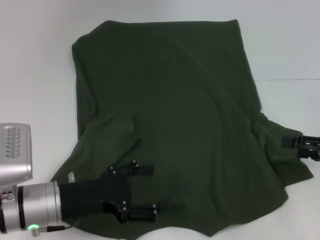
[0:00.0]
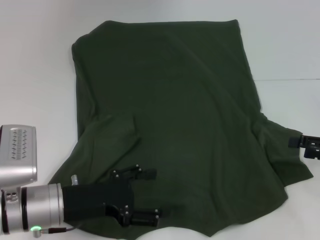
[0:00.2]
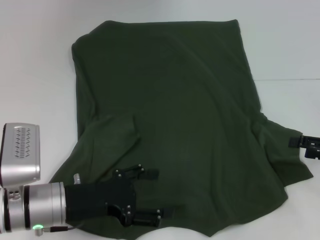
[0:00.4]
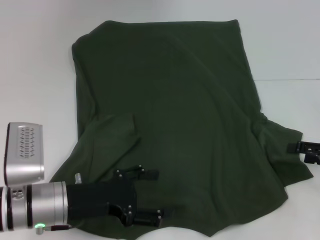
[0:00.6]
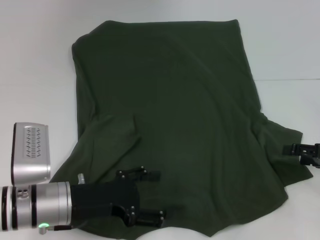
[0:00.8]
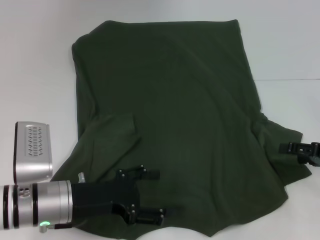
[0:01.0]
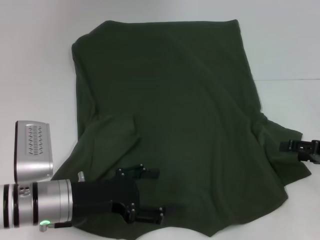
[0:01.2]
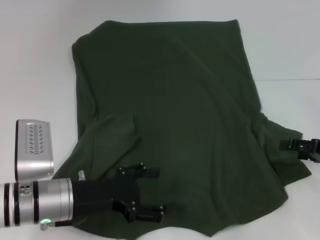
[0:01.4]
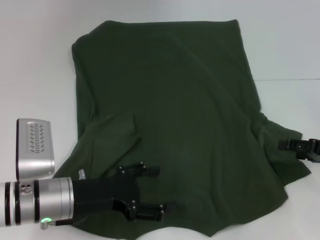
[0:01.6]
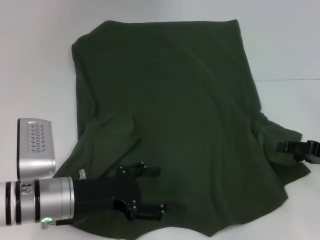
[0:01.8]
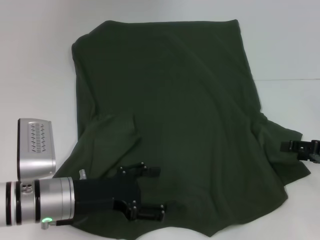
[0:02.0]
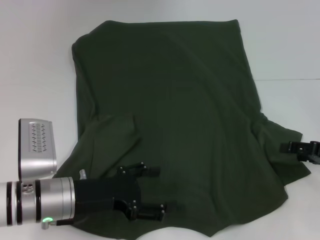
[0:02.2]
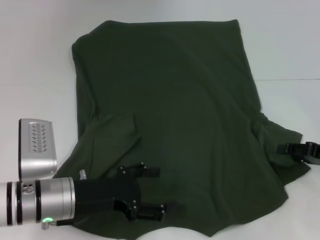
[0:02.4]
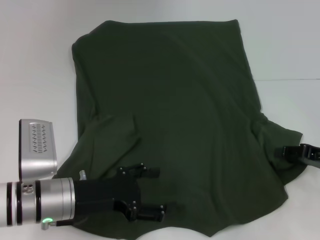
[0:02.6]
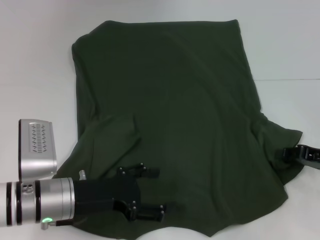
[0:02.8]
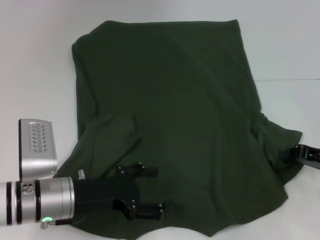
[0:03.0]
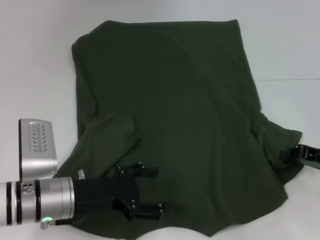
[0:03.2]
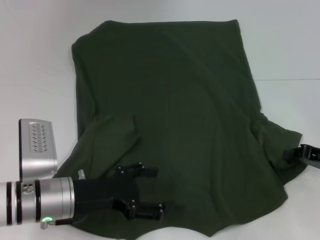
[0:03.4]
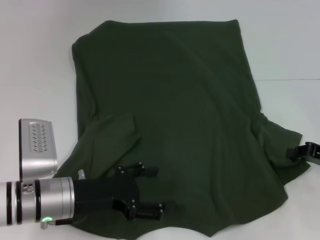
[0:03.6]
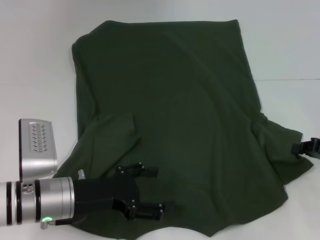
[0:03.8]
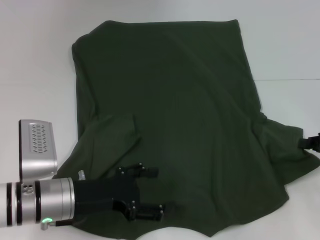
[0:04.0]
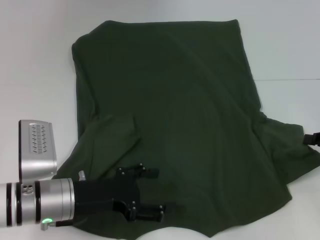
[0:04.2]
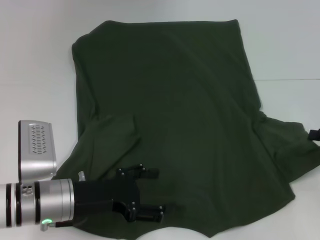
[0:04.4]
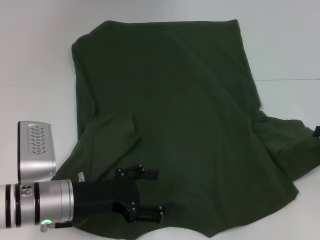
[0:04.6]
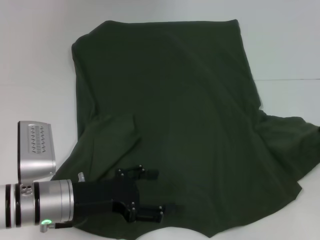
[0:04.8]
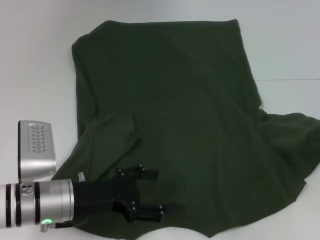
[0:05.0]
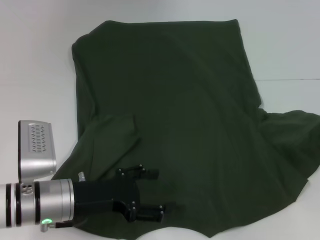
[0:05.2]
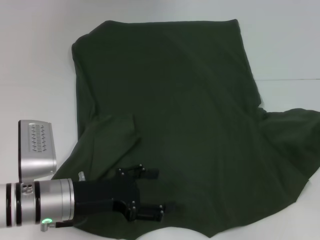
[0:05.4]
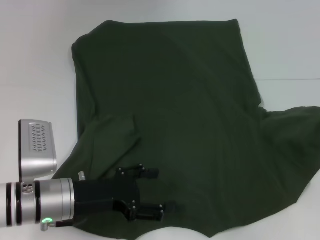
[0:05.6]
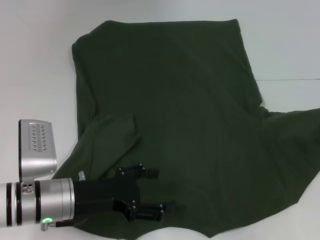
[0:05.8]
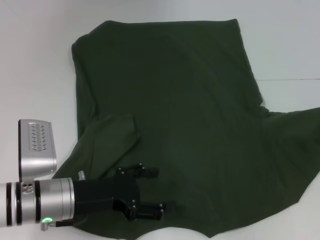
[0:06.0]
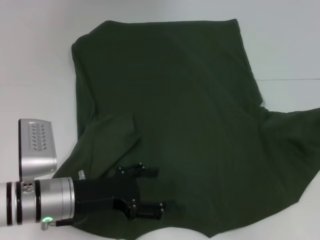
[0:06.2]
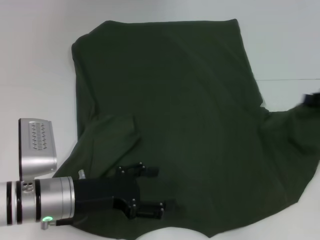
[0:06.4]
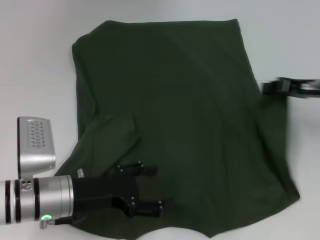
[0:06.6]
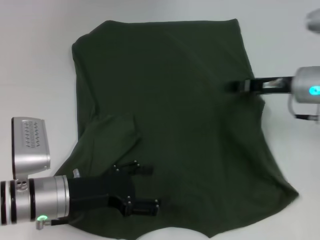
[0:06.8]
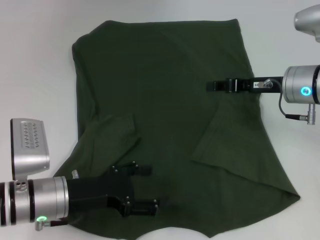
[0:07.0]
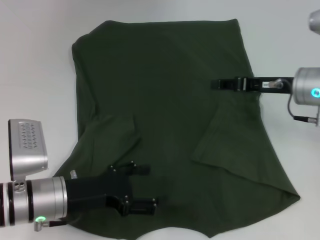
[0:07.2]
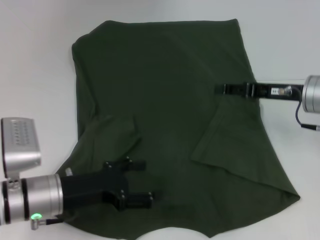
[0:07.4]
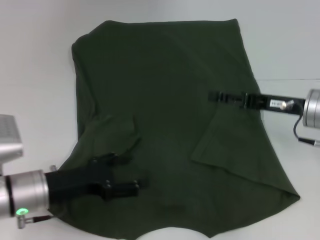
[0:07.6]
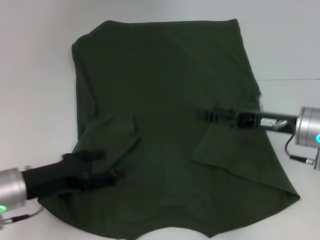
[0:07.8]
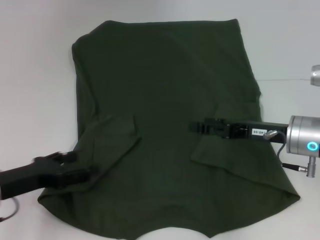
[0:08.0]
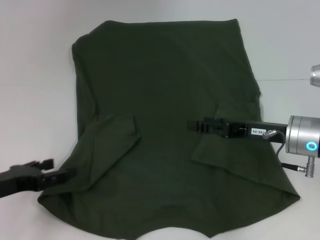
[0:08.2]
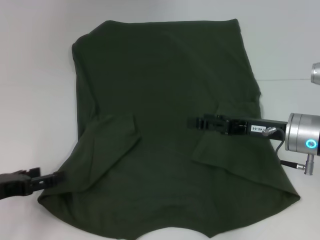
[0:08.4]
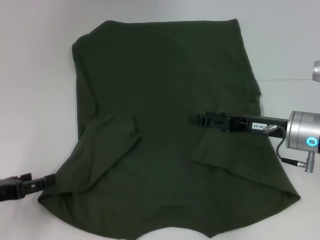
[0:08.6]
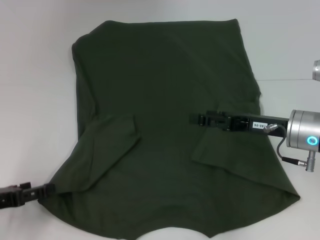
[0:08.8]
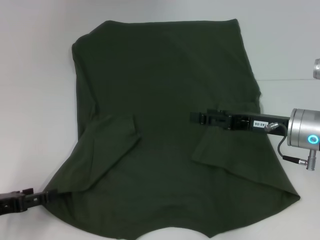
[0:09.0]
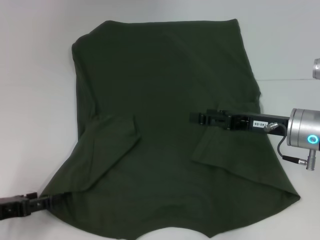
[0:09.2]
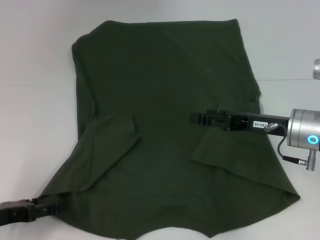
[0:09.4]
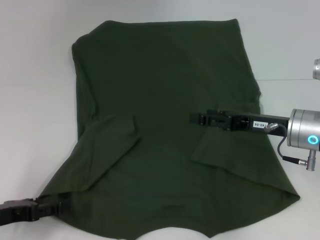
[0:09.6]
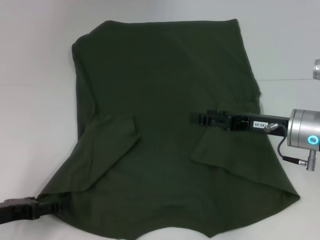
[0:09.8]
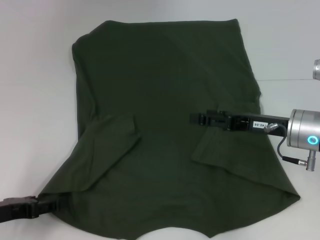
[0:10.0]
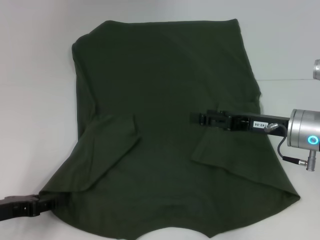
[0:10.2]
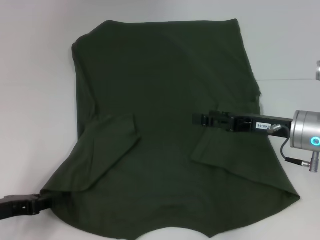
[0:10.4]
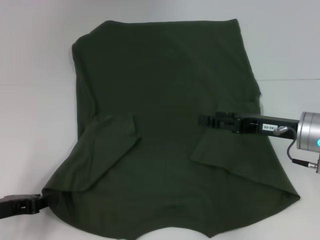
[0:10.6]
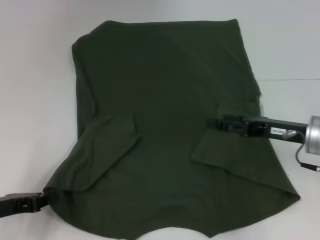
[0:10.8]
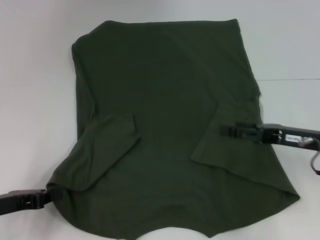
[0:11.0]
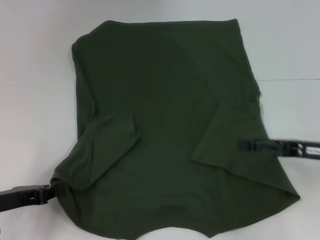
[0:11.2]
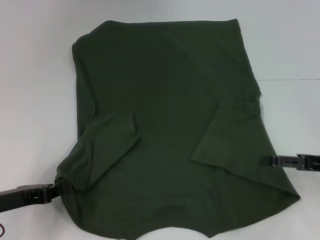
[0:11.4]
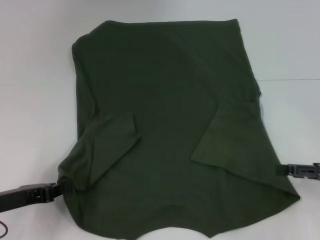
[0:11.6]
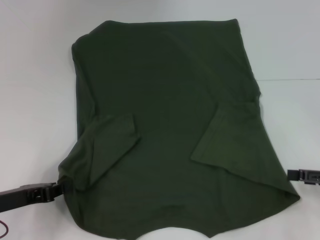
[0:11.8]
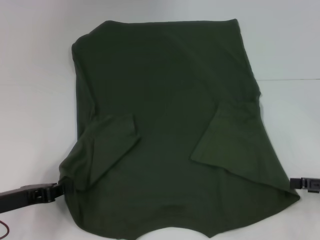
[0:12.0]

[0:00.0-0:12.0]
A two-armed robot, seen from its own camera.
Step, 0:00.0 to 0:09.2: Fold the bottom right sleeve with your right hand.
0:00.0 to 0:01.6: There are only small adjustments of the grippers.
0:01.6 to 0:03.0: The right gripper closes.
0:03.0 to 0:04.4: The grippers move only a little.
0:04.4 to 0:06.0: The grippers stay close to where they were, moving slightly.
0:06.0 to 0:07.6: The right gripper goes approximately 15 cm to the left, and opens.
0:07.6 to 0:09.0: The left gripper travels to the left by approximately 10 cm.
0:09.0 to 0:10.4: The left gripper closes.
0:10.4 to 0:12.0: The left gripper closes its fingers. Meanwhile the right gripper goes about 15 cm to the right and backward.

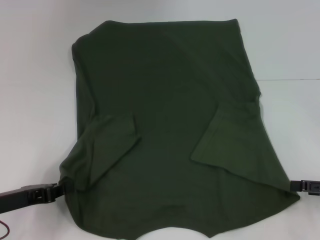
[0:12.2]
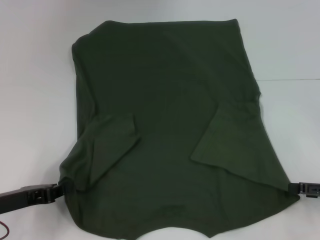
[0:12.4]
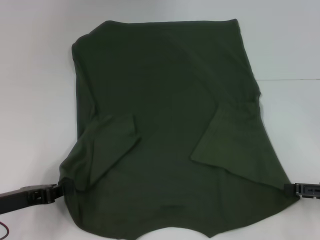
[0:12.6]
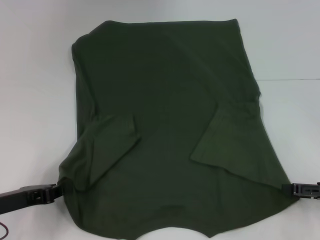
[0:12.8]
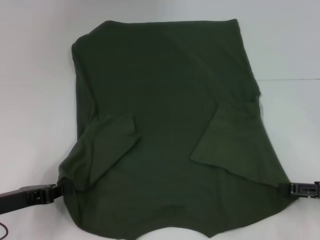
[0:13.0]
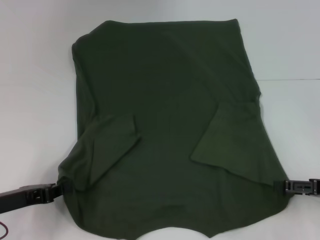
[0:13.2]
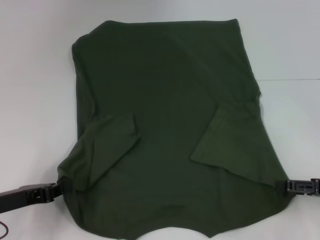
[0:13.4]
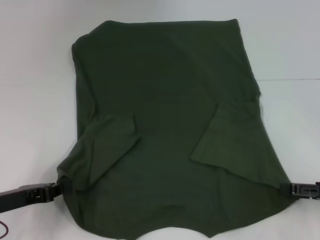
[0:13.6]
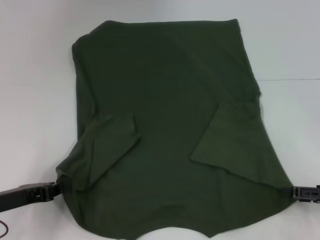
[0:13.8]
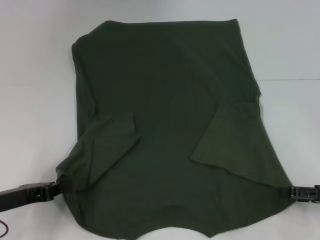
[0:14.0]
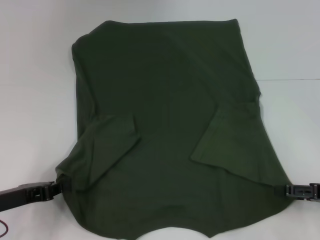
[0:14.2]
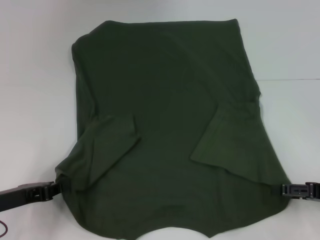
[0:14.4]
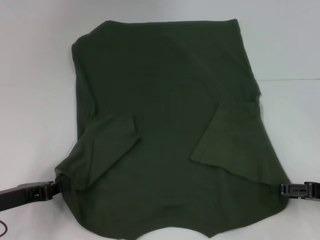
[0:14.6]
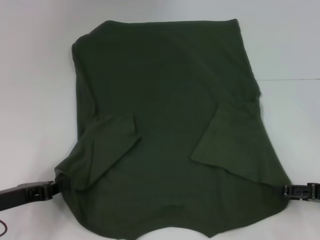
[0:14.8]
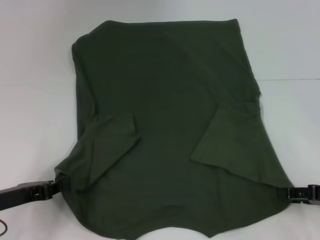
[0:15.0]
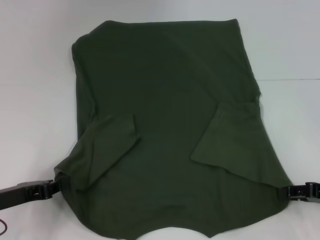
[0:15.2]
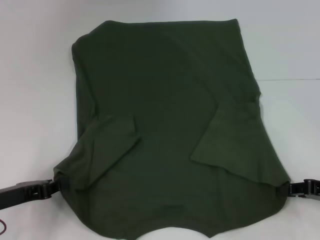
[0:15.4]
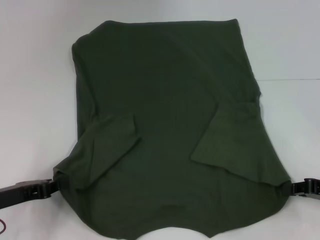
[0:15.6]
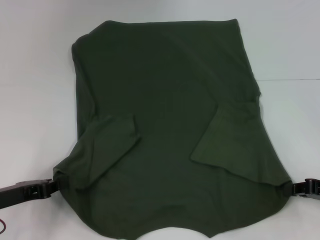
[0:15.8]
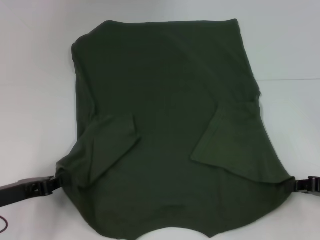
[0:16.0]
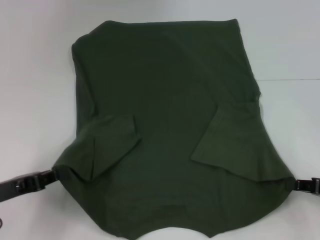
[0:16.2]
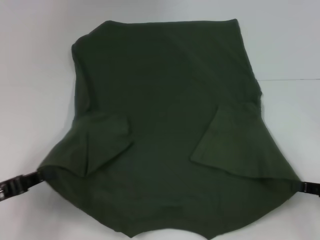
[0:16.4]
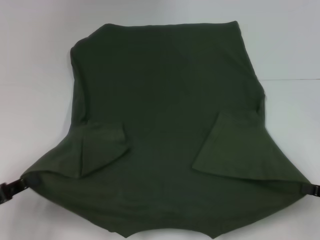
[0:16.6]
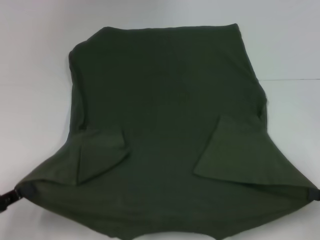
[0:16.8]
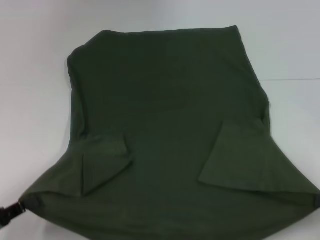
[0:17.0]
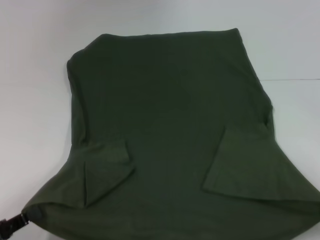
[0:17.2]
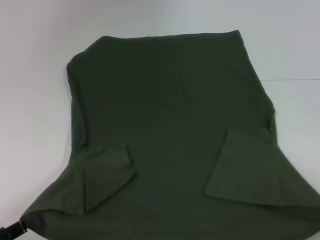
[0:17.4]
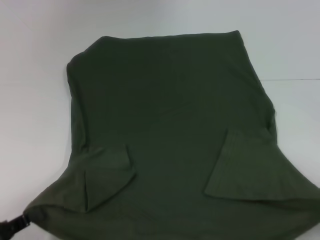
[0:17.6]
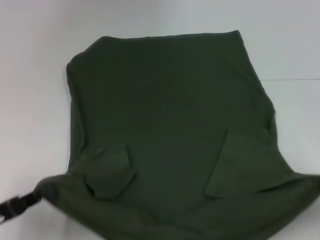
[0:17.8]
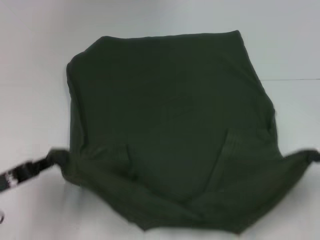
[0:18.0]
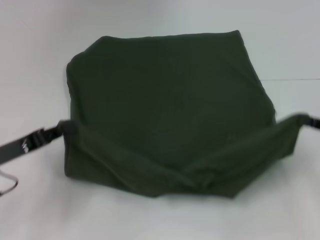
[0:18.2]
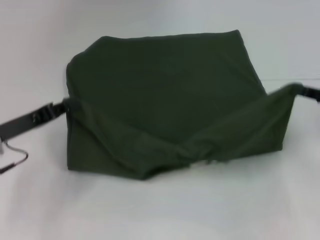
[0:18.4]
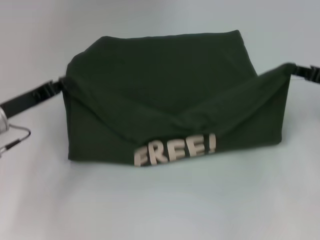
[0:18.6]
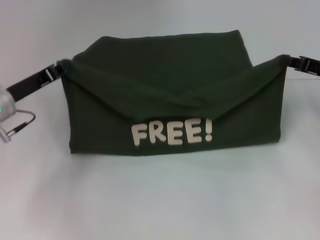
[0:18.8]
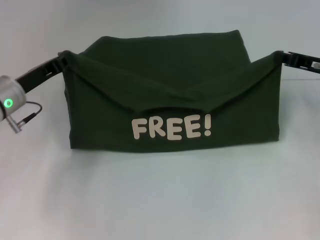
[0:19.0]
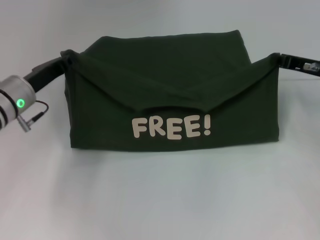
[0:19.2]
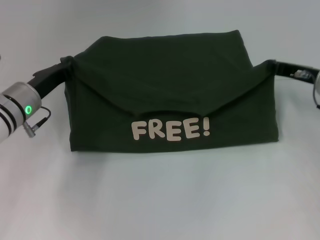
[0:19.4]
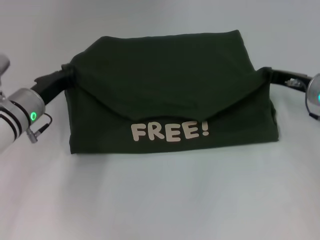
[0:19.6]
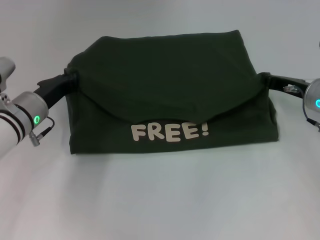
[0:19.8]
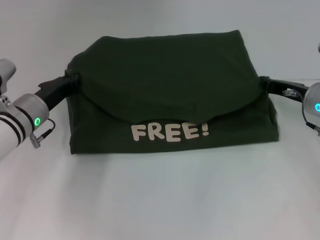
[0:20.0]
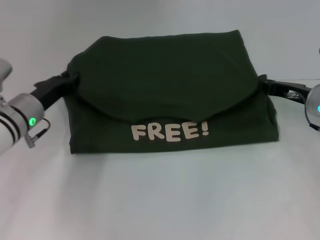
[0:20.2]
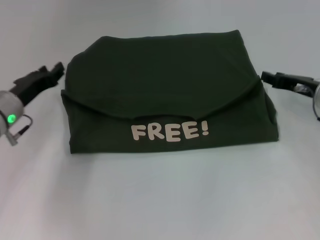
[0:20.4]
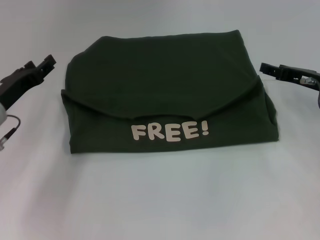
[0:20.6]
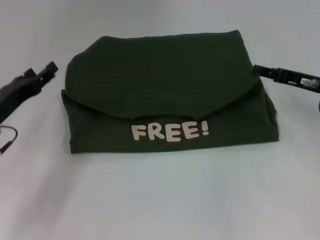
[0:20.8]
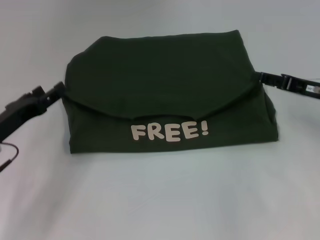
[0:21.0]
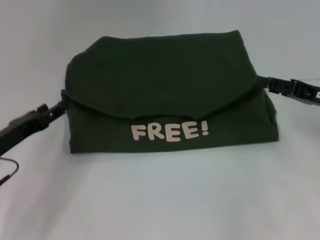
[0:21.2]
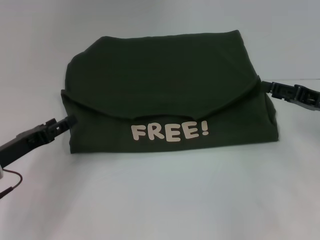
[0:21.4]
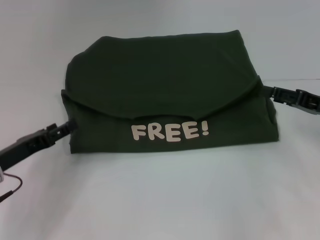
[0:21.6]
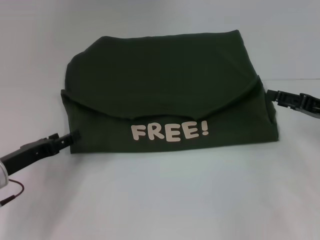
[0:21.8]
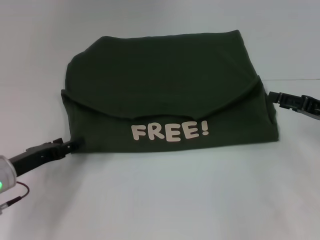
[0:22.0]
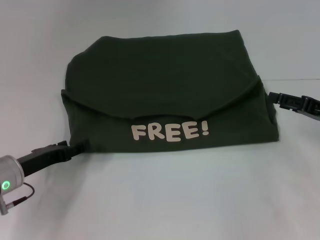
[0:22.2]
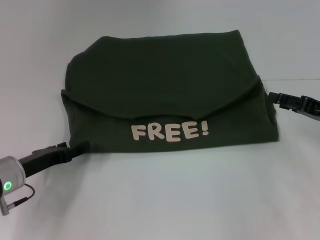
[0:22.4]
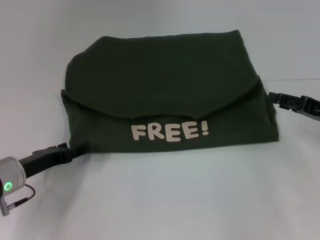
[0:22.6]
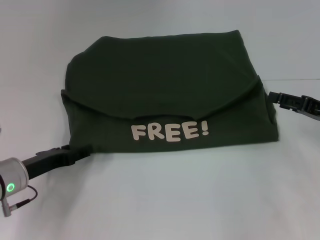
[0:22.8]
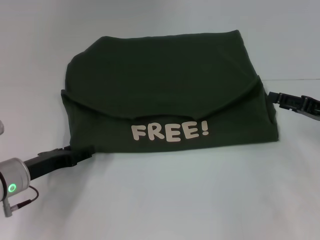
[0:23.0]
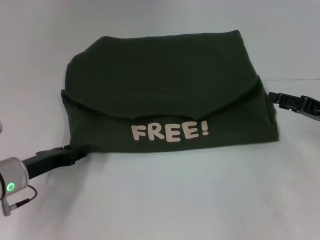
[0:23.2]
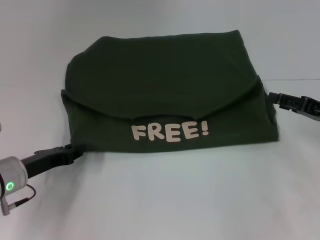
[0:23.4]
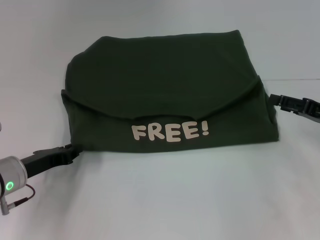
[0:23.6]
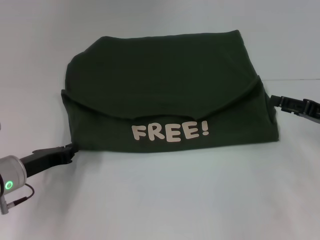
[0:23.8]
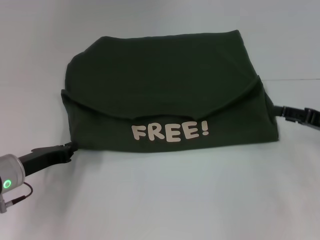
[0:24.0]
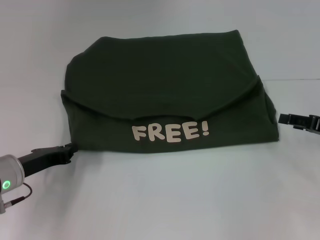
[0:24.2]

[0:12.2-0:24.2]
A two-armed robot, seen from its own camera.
Step, 0:13.4 to 0:20.2: Fold the clothes with your left hand.
Step, 0:13.4 to 0:20.2: Fold the clothes with your right hand.
0:12.2 to 0:15.2: There are only small adjustments of the grippers.
0:15.2 to 0:16.6: The left gripper goes roughly 5 cm backward. The right gripper ends up some 5 cm from where it was, and closes its fingers.
0:16.6 to 0:18.2: The two grippers go roughly 5 cm forward.
0:18.2 to 0:19.8: The left gripper moves forward and to the right, approximately 15 cm. The right gripper goes about 15 cm forward and to the left.
0:19.8 to 0:21.2: The right gripper goes approximately 5 cm backward, and opens, while the left gripper goes about 10 cm backward and to the left, and opens its fingers.
0:21.2 to 0:22.6: There are only small adjustments of the grippers.
0:22.6 to 0:24.2: The left gripper closes its fingers.
